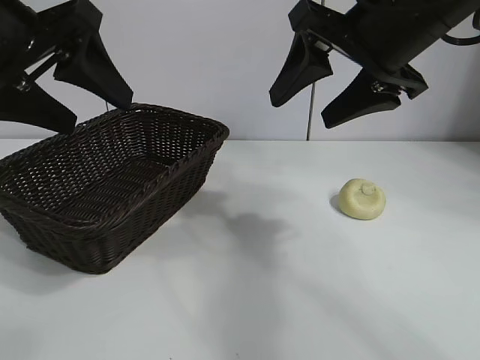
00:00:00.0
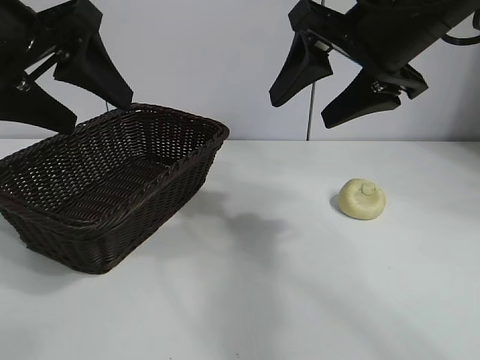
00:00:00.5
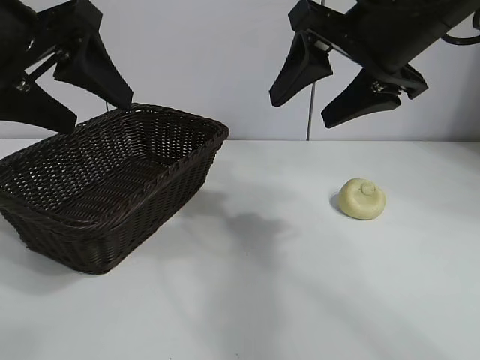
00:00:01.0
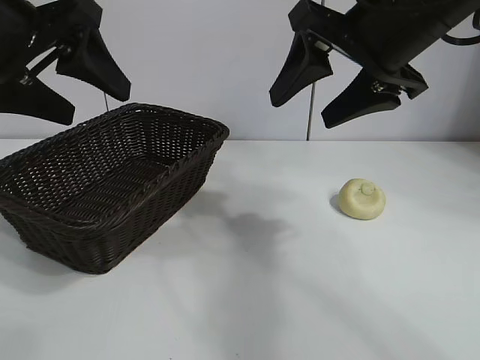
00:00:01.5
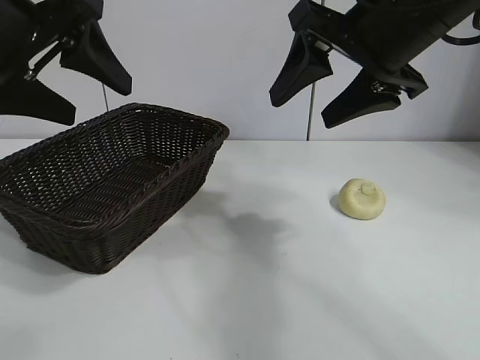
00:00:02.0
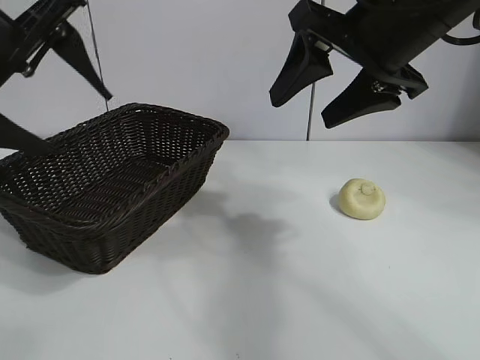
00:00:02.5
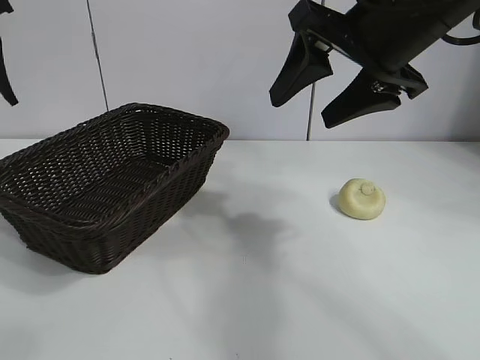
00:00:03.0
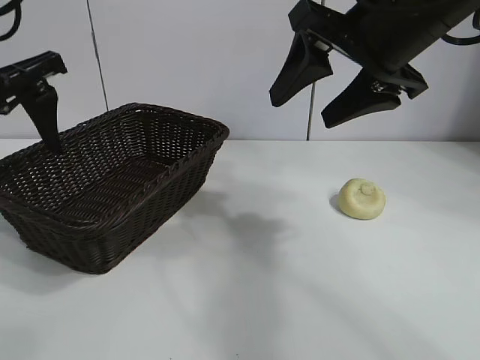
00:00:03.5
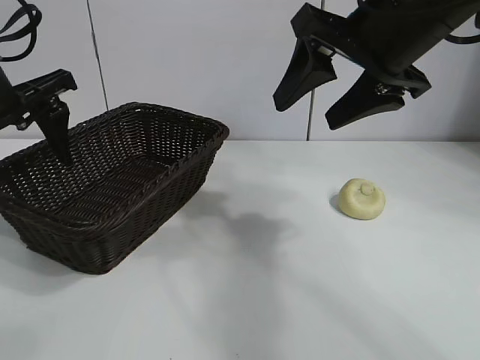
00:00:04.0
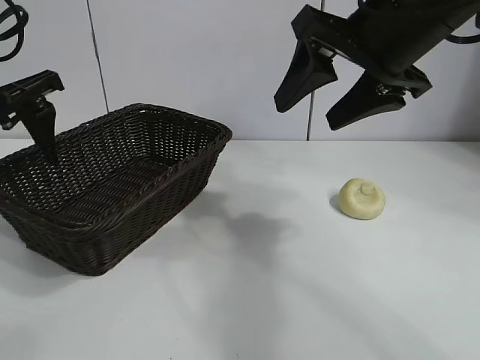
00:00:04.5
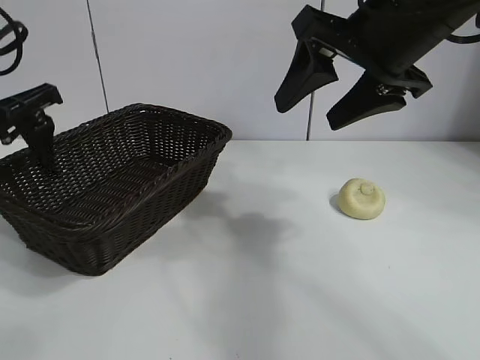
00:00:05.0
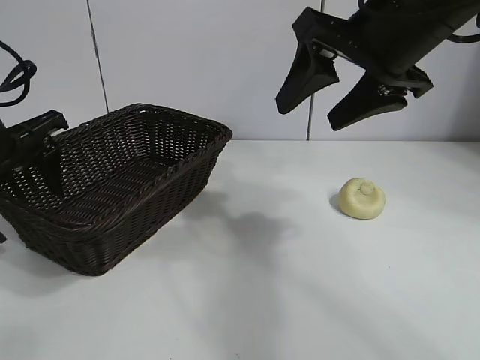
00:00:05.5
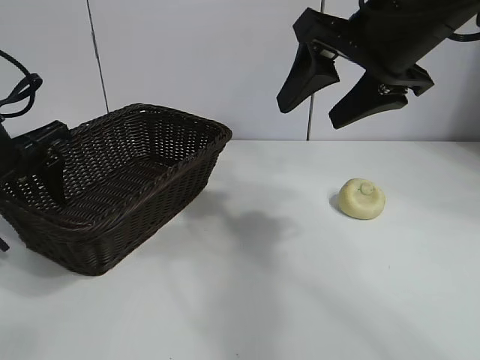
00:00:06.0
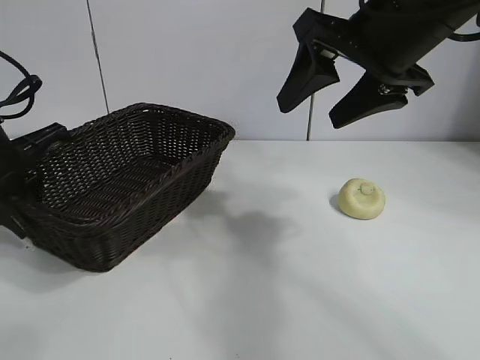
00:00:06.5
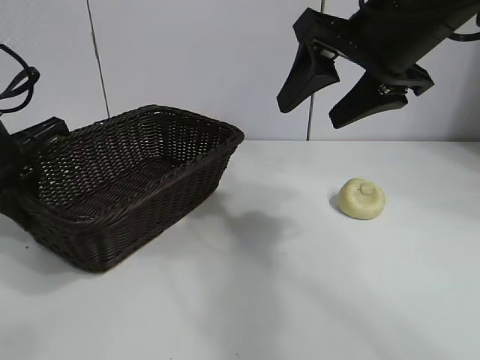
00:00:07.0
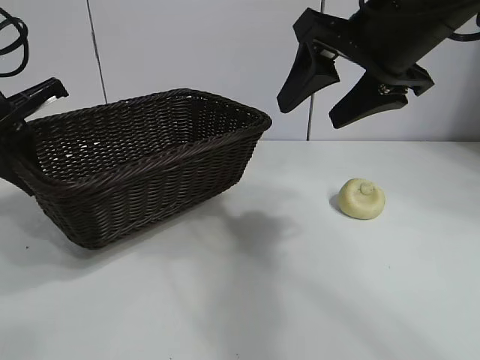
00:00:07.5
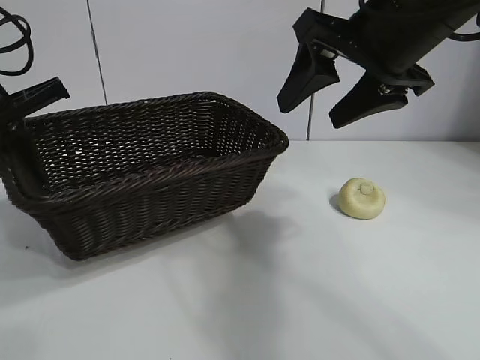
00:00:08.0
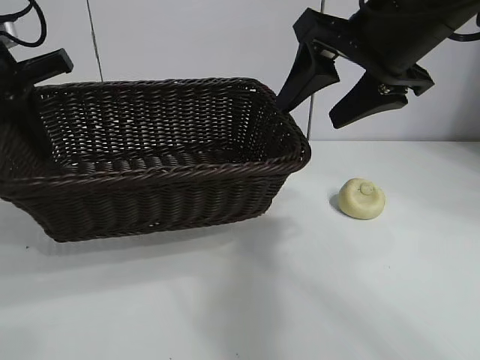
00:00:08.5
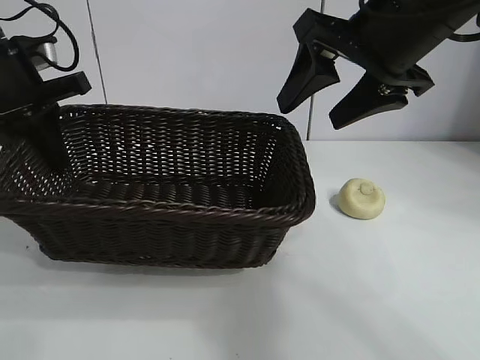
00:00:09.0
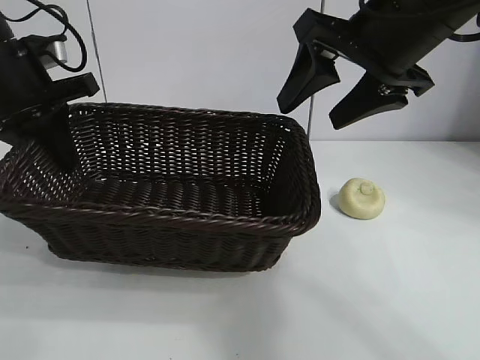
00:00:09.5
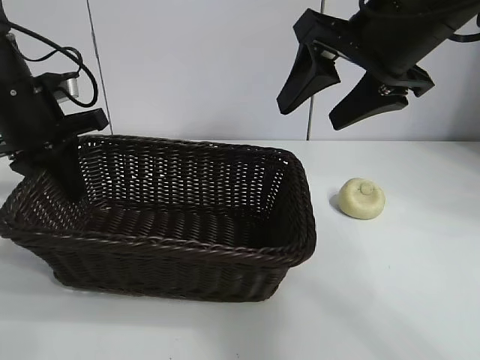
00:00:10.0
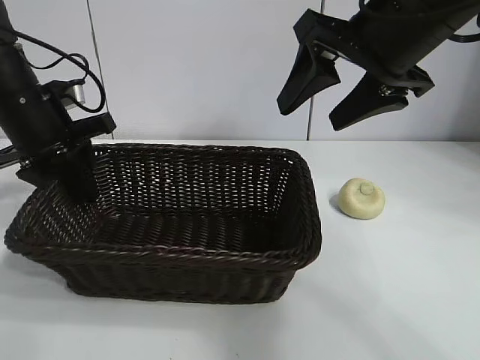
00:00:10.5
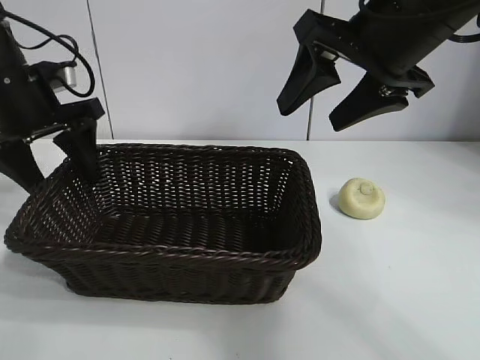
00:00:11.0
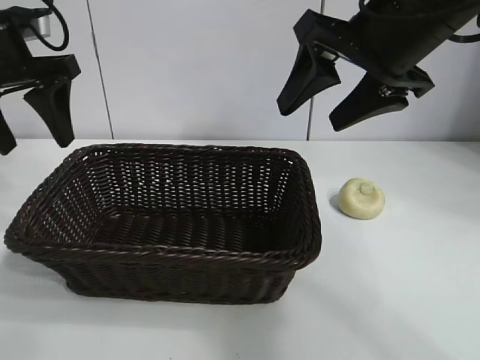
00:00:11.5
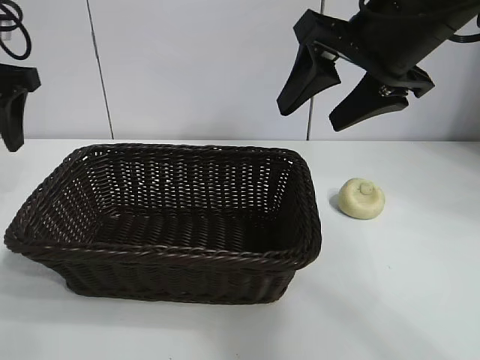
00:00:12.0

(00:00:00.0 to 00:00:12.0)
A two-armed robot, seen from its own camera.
Task of the whole recording: pick up the egg yolk pastry and put it into the basket.
Step, 00:00:01.5 - 00:00:06.5: Grasp the basket with left gripper.
Step, 00:00:07.0 - 00:00:11.0: Place the basket in the center of view with left gripper.

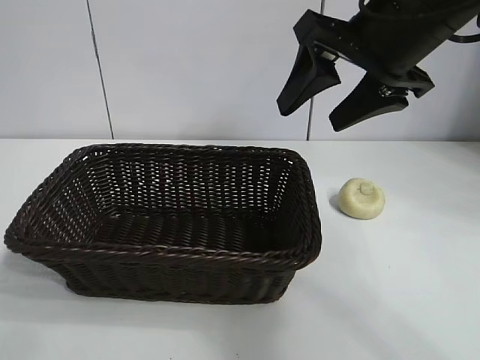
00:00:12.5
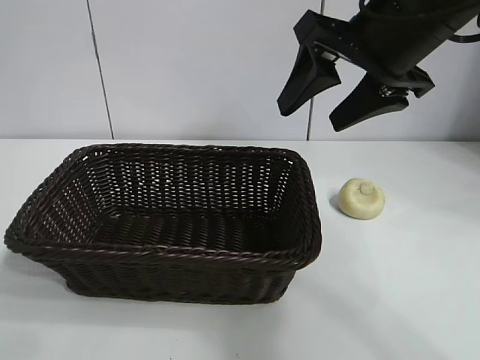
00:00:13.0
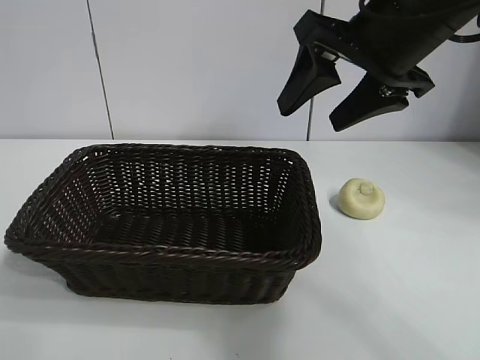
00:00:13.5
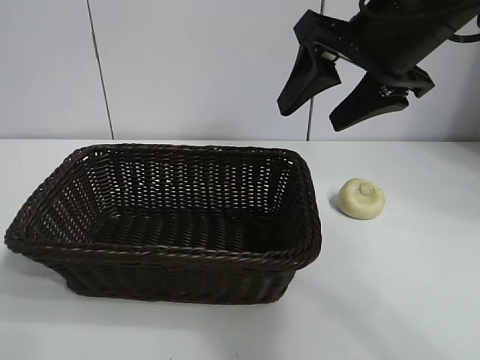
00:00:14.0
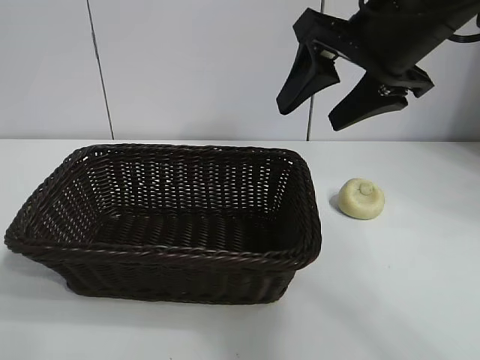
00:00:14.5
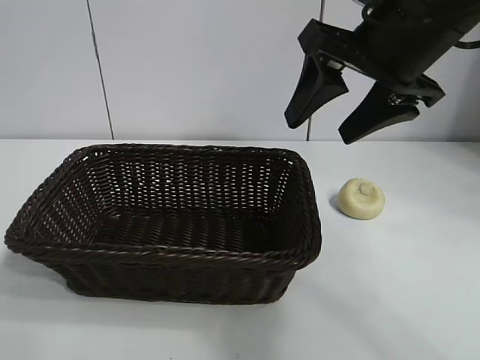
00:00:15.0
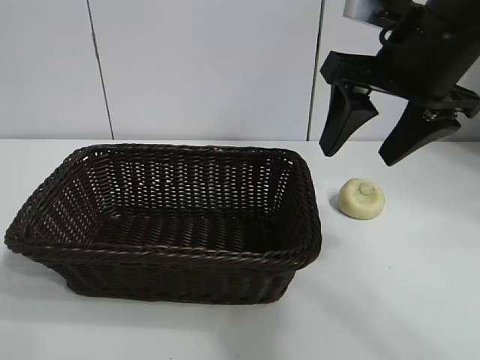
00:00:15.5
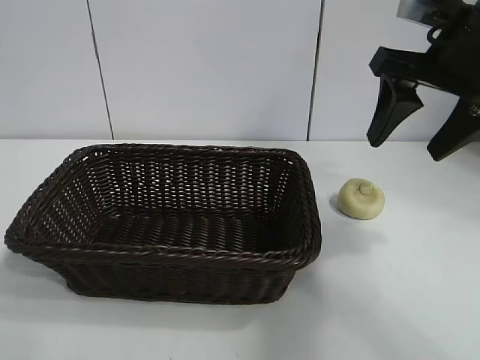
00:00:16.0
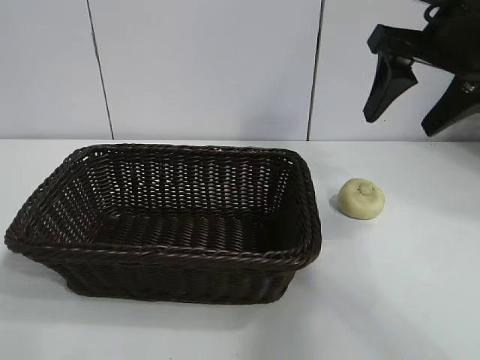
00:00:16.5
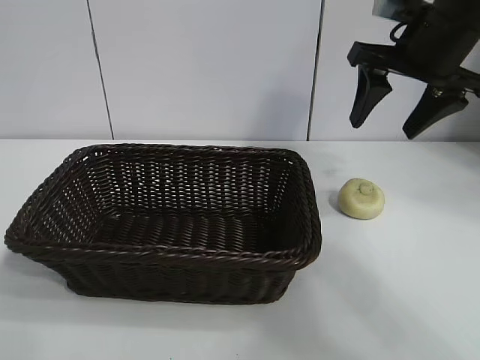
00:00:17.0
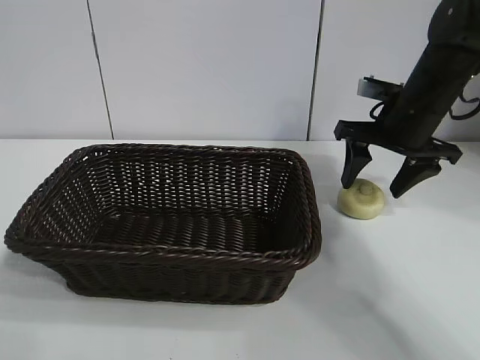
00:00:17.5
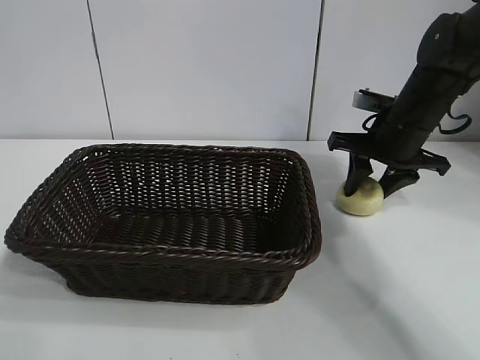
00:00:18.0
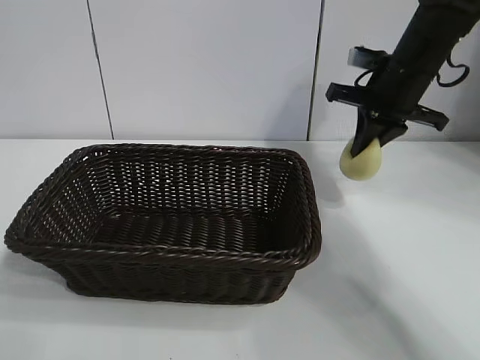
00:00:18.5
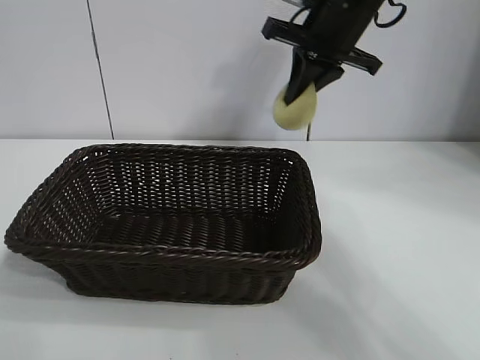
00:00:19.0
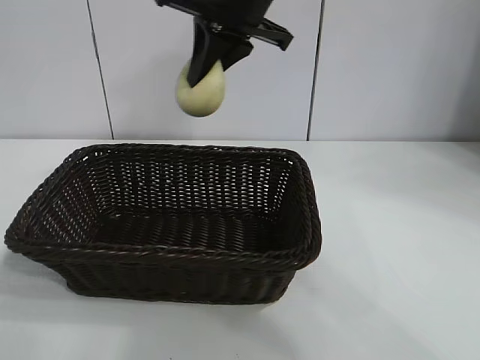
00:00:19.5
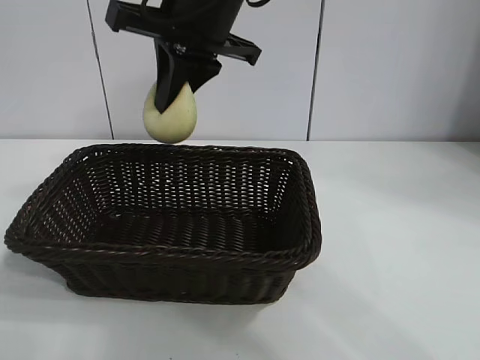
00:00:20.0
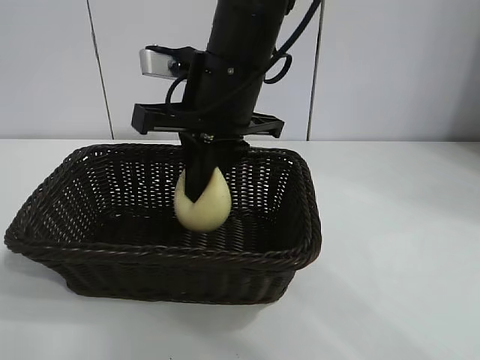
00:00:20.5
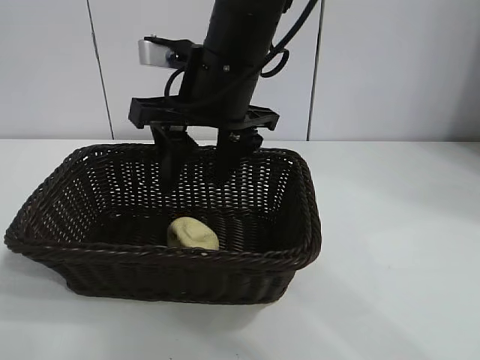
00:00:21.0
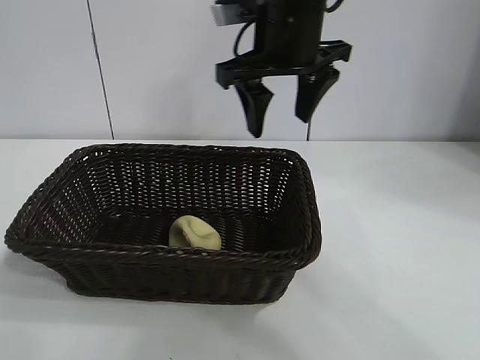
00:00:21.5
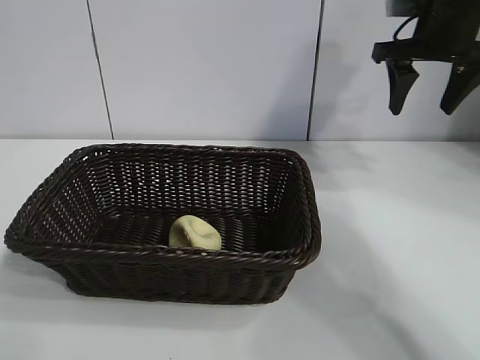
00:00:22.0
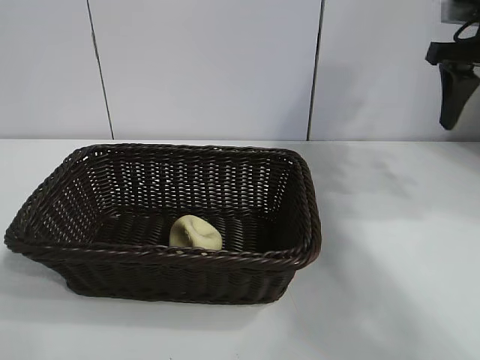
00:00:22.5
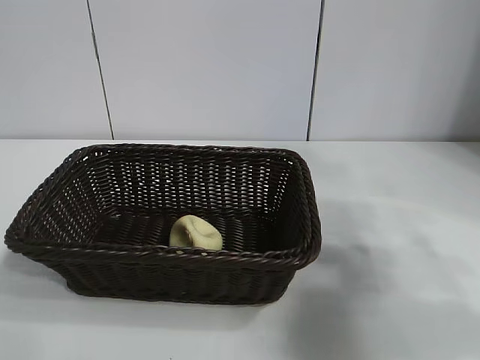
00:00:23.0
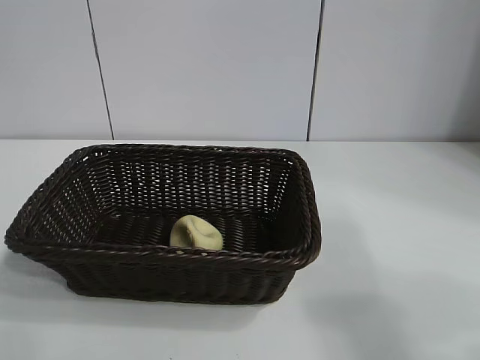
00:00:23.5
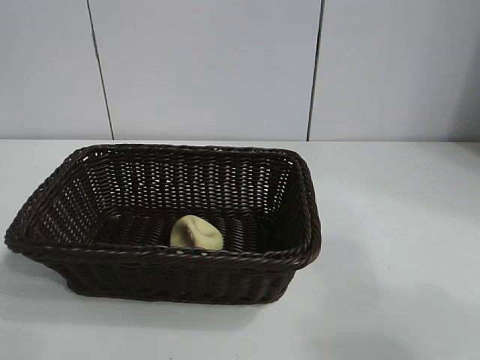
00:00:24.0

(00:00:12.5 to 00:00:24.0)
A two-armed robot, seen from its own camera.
Task of the whole recording: pick up the egg yolk pastry and put it into the basket.
Step, 00:00:12.5 - 00:00:18.0: Grasp egg yolk pastry with right gripper.
Step, 00:00:18.5 - 00:00:21.0: Place the egg yolk pastry in the basket with right gripper.

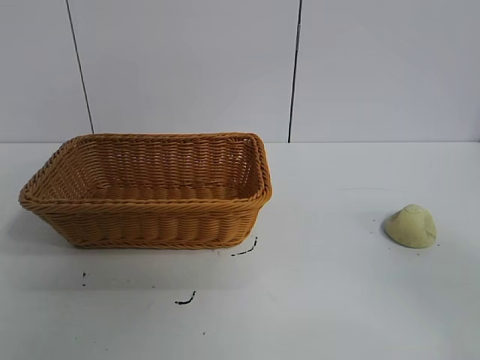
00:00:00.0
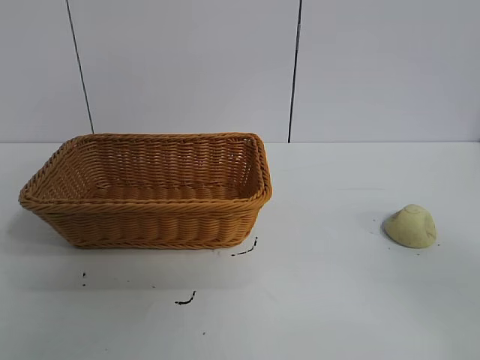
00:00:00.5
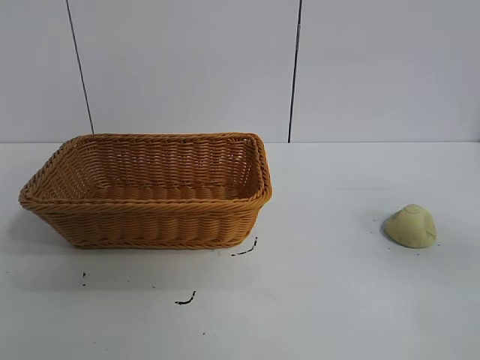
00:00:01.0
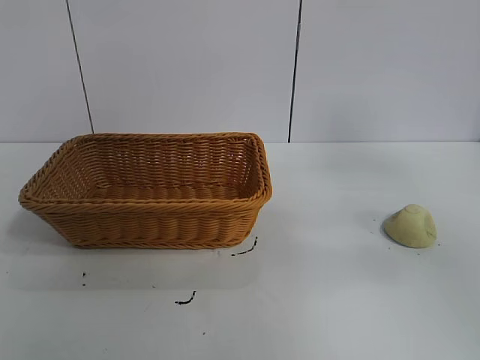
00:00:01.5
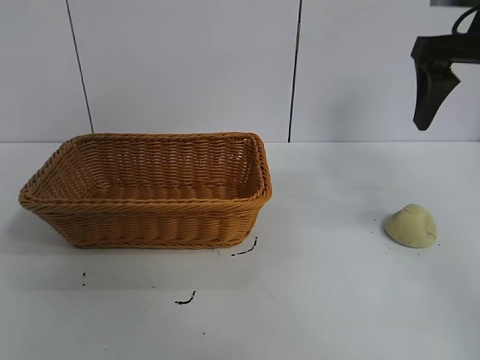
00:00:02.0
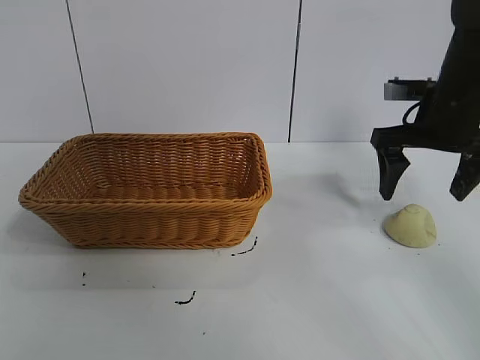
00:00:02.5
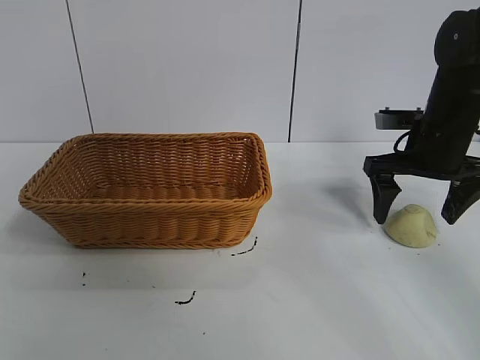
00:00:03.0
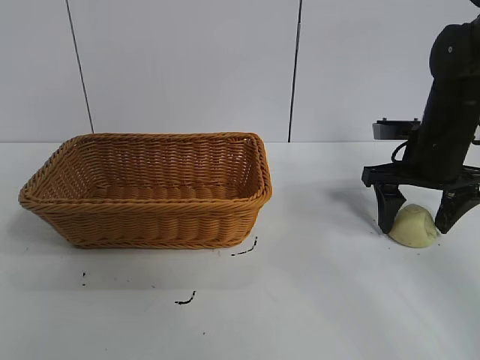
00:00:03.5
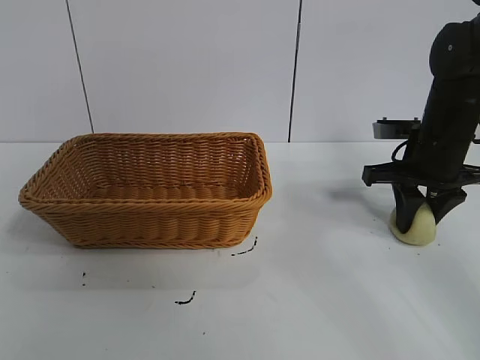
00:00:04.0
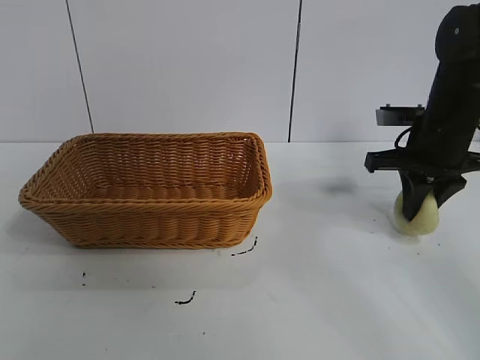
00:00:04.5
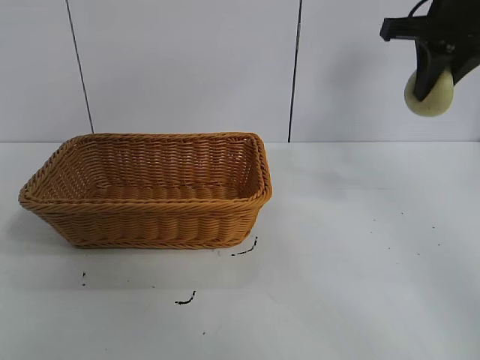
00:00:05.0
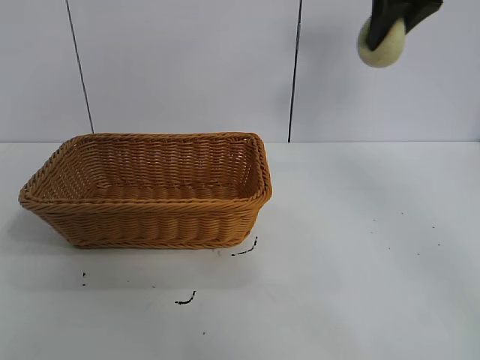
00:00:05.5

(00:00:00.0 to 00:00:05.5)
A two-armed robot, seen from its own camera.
Task of the whole recording: pick up the egg yolk pastry and put it into the basket.
Step, 00:00:01.0 - 00:00:03.5: Grasp egg yolk pastry with right gripper.
